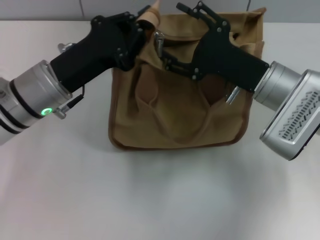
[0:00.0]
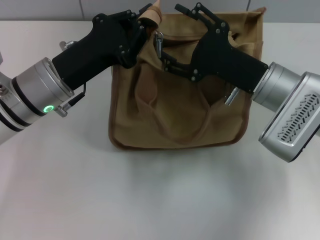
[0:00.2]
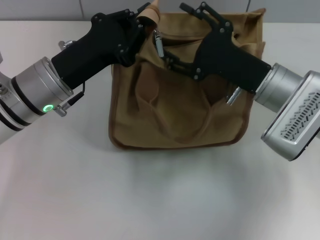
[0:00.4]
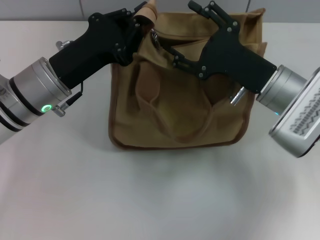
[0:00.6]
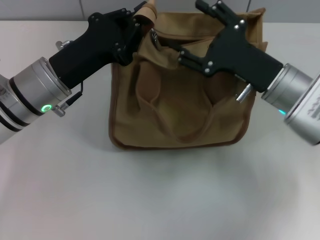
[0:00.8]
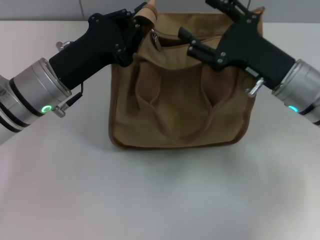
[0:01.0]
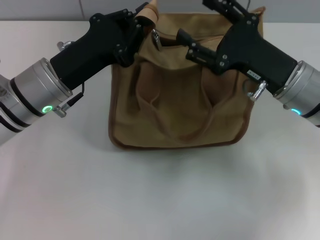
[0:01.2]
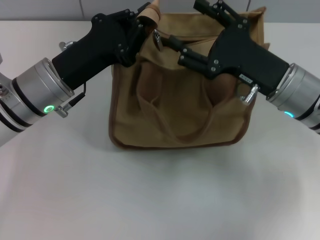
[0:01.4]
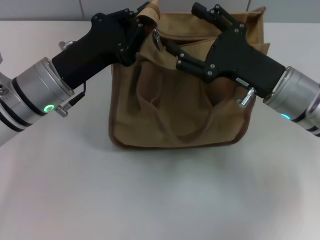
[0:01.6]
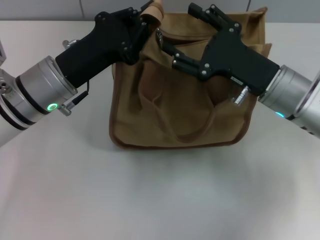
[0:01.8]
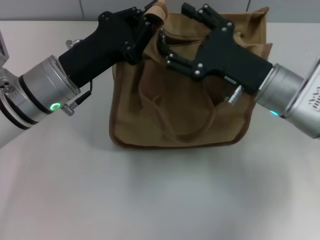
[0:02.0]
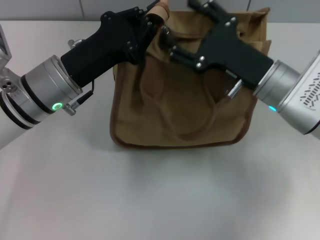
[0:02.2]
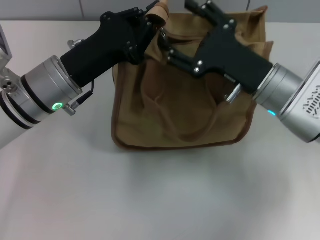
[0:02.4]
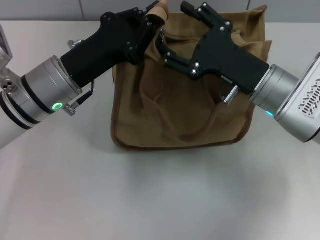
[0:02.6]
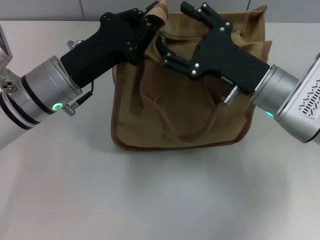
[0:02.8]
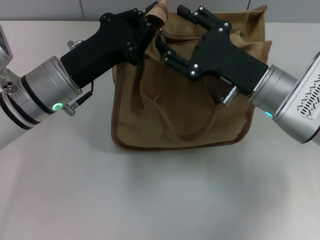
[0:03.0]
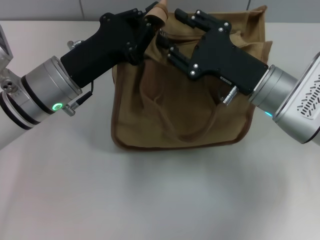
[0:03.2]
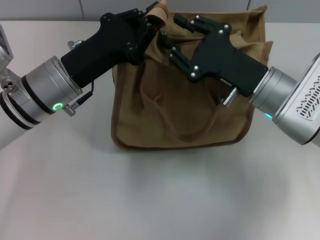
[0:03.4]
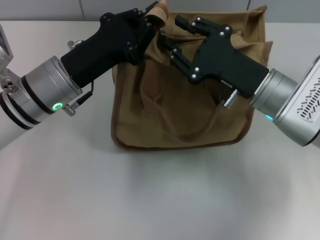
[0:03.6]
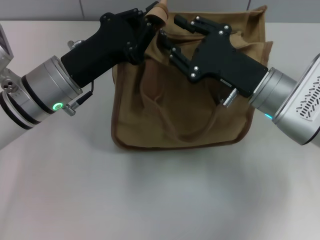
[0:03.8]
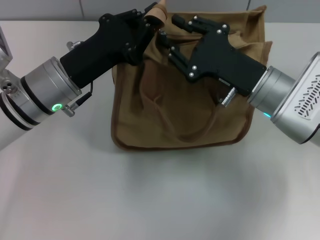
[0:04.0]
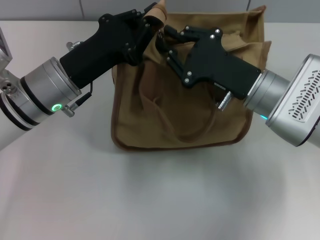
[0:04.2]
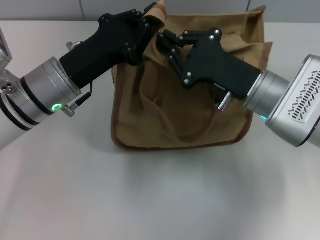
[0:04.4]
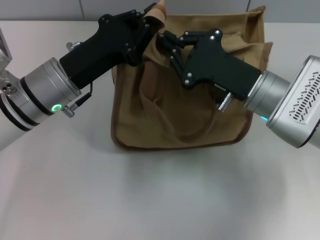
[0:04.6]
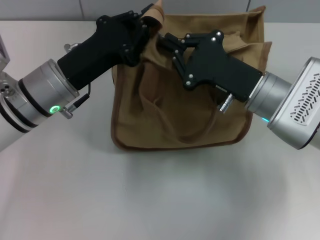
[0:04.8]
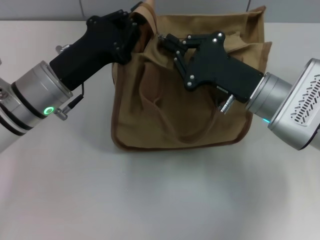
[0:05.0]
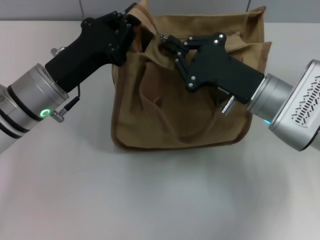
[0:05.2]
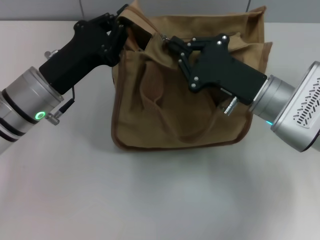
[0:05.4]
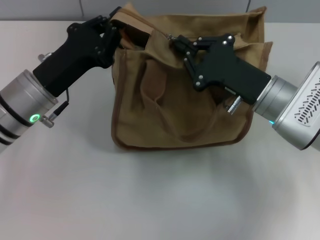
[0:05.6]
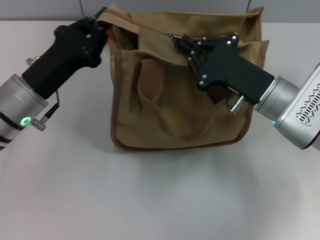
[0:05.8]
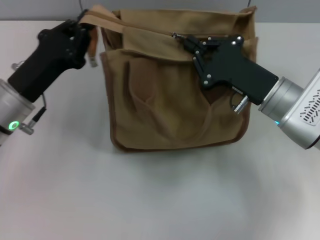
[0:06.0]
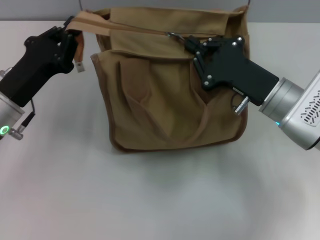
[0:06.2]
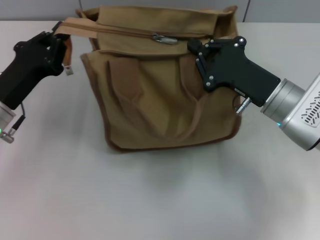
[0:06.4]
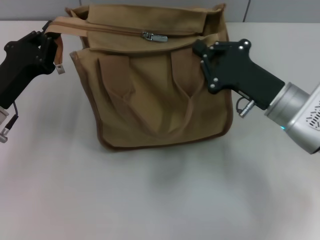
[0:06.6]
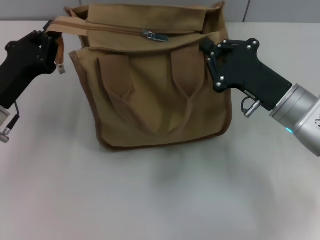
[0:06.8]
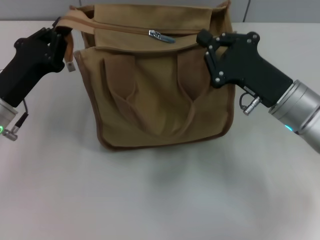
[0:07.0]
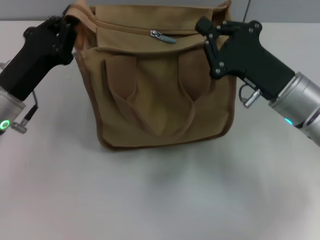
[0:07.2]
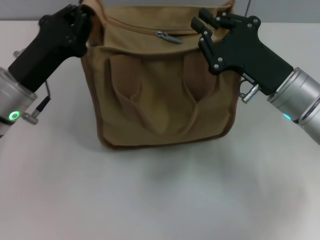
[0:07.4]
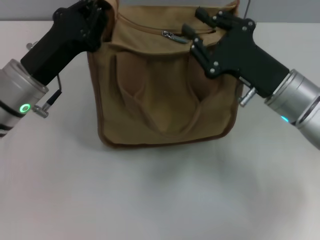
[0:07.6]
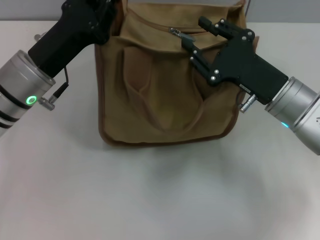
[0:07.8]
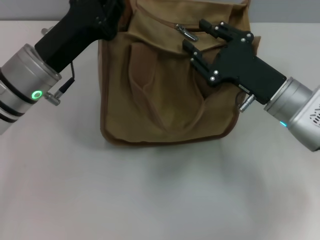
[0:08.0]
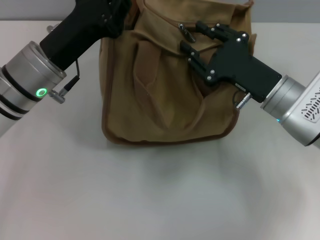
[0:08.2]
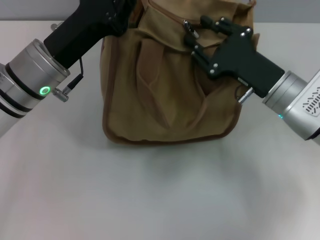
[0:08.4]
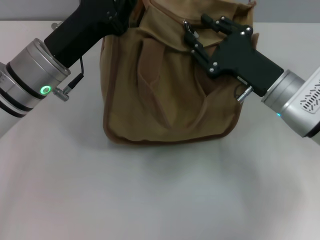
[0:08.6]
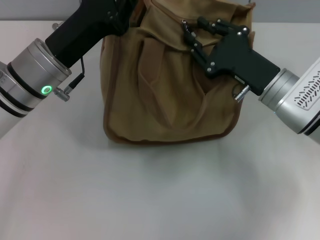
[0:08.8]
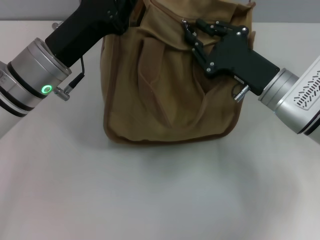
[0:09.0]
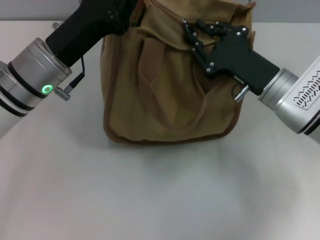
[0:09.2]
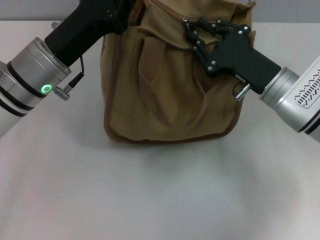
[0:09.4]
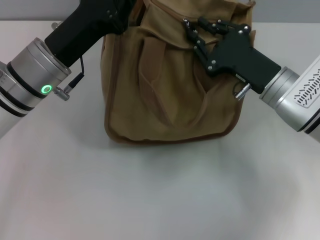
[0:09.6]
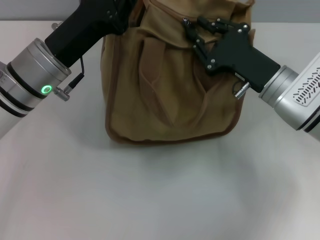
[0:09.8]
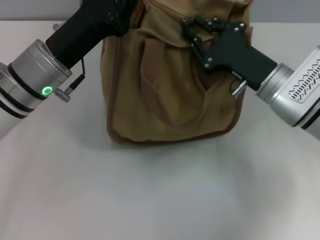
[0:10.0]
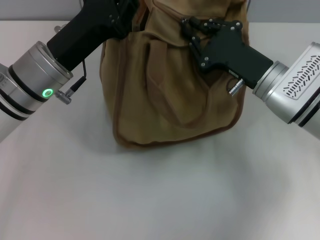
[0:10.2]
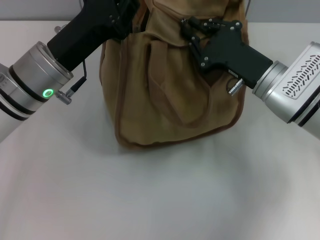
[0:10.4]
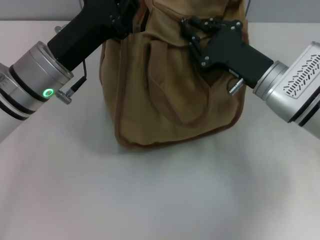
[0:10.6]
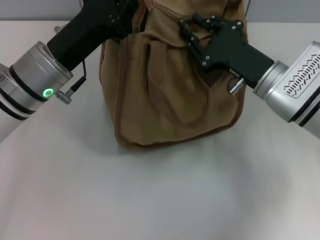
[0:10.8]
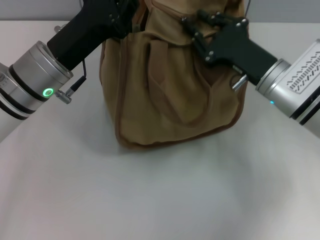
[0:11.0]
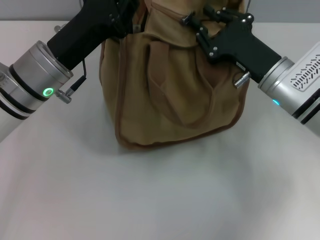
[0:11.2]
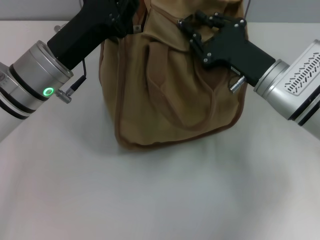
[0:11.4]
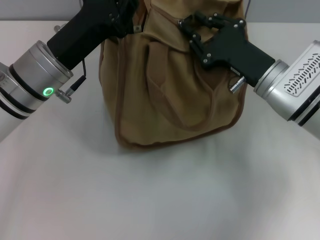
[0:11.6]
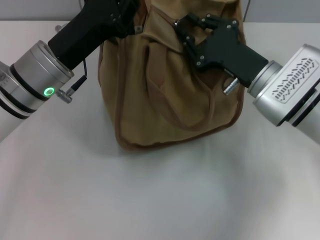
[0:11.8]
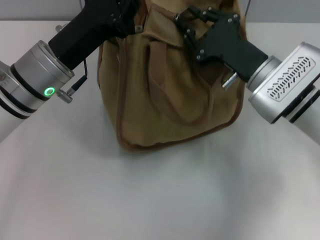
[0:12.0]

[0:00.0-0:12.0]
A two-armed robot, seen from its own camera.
0:01.6 to 0:03.0: There are only small adjustments of the grippers.
0:03.0 to 0:04.4: The right gripper closes.
0:04.4 to 0:06.0: The left gripper moves to the left, roughly 5 cm.
0:07.6 to 0:09.0: The grippers stay close to where they were, moving slightly.
0:09.0 to 0:10.4: Neither gripper changes place.
0:10.4 to 0:12.0: The grippers move only a little.

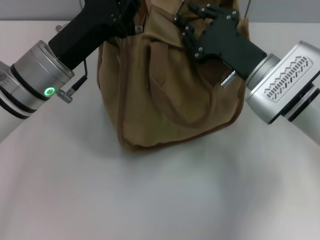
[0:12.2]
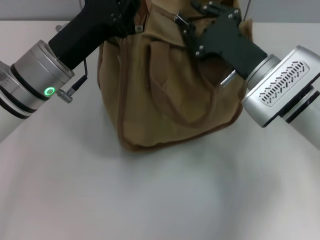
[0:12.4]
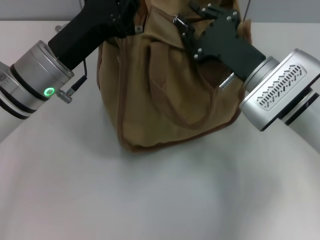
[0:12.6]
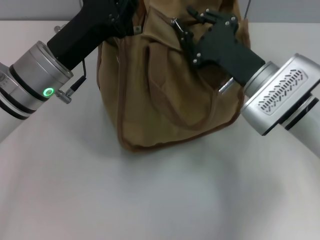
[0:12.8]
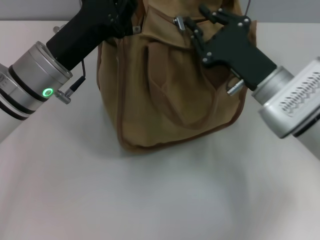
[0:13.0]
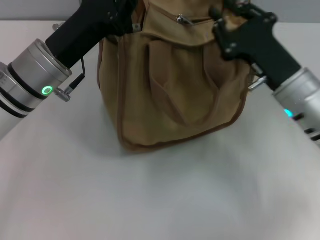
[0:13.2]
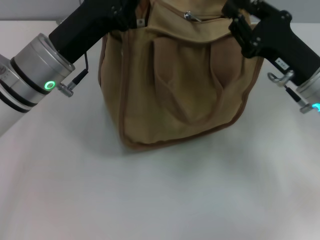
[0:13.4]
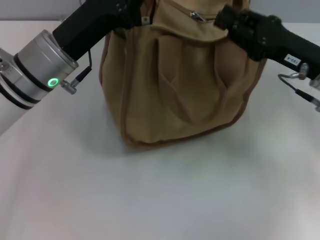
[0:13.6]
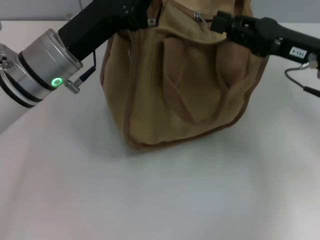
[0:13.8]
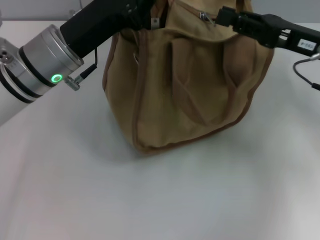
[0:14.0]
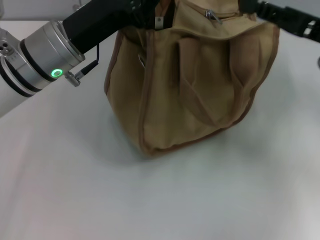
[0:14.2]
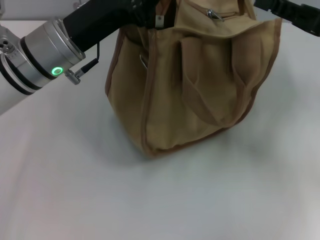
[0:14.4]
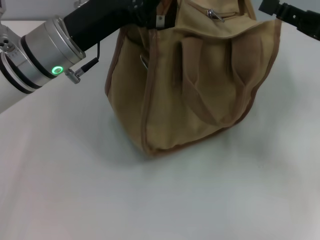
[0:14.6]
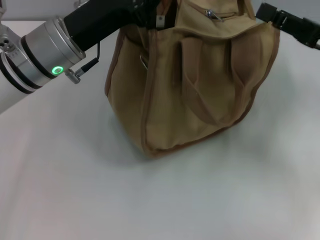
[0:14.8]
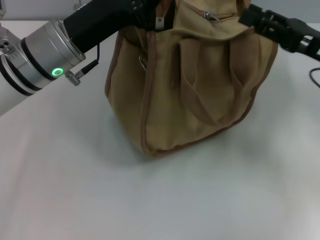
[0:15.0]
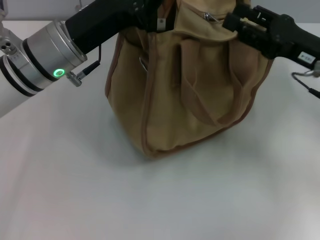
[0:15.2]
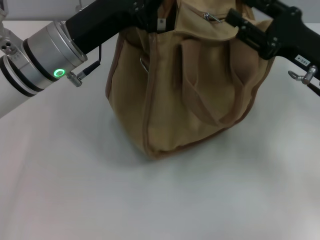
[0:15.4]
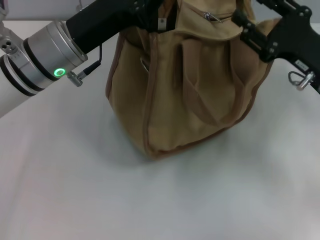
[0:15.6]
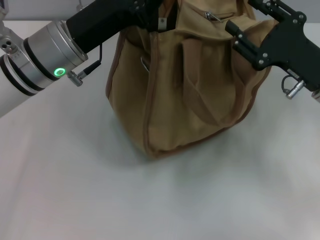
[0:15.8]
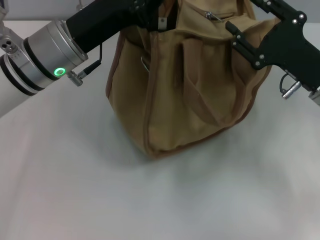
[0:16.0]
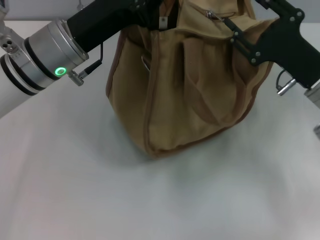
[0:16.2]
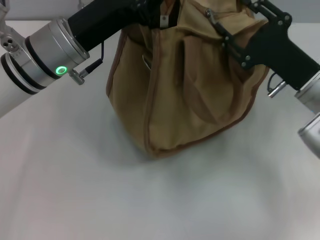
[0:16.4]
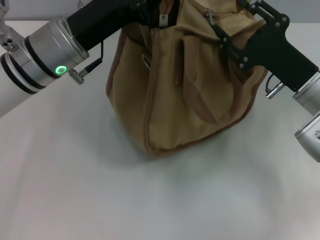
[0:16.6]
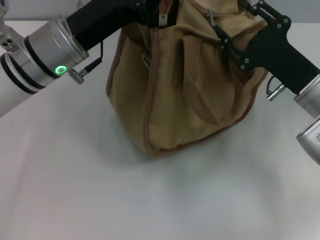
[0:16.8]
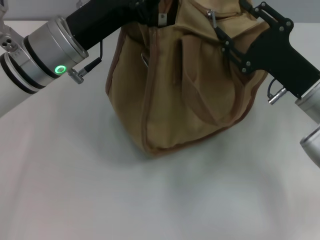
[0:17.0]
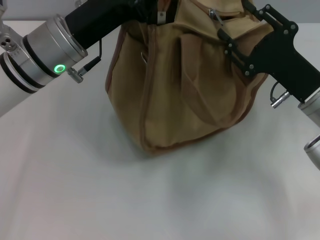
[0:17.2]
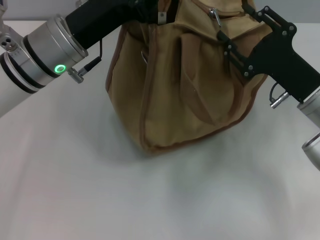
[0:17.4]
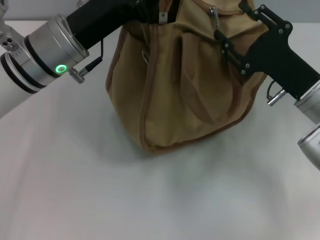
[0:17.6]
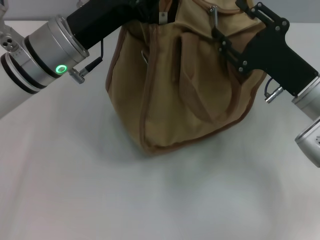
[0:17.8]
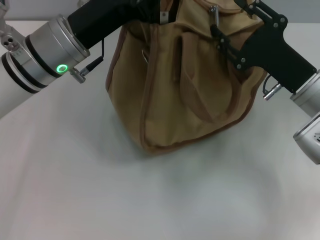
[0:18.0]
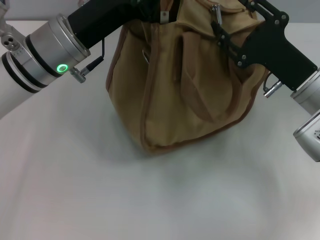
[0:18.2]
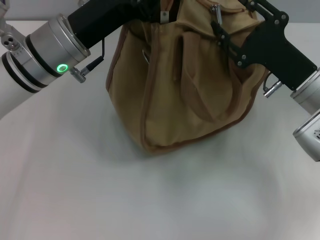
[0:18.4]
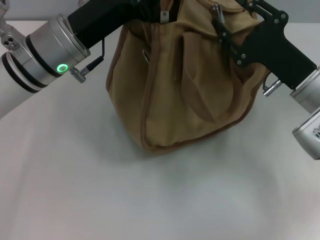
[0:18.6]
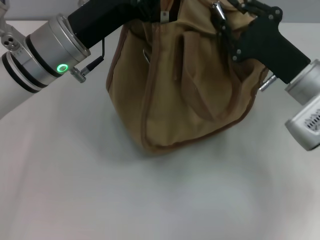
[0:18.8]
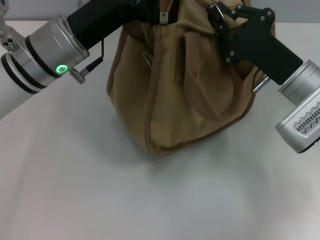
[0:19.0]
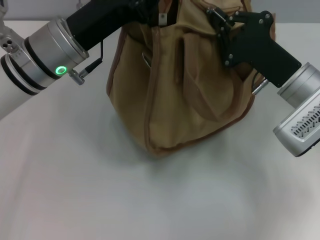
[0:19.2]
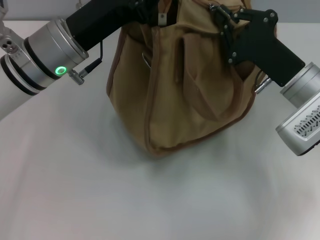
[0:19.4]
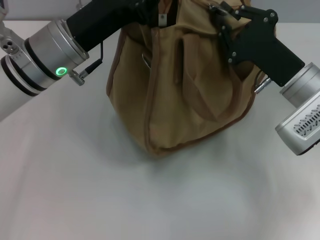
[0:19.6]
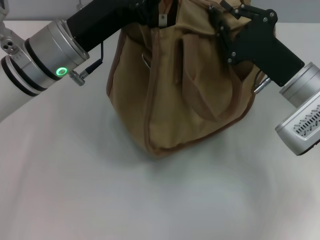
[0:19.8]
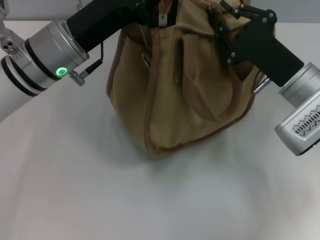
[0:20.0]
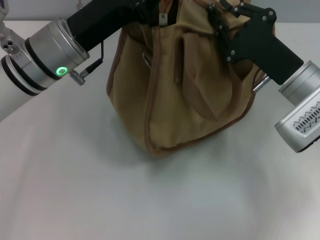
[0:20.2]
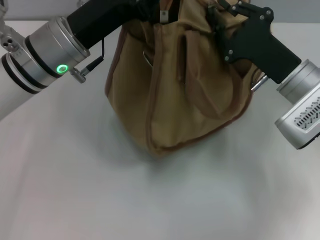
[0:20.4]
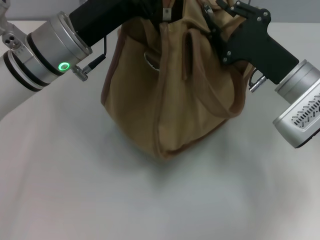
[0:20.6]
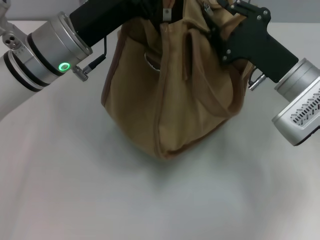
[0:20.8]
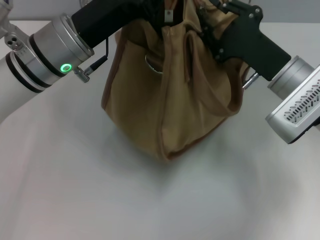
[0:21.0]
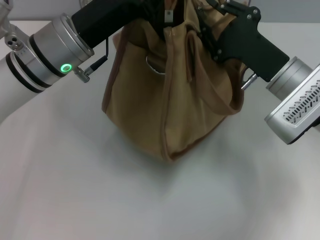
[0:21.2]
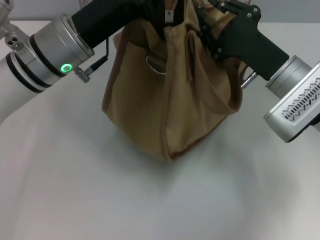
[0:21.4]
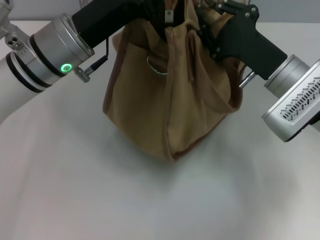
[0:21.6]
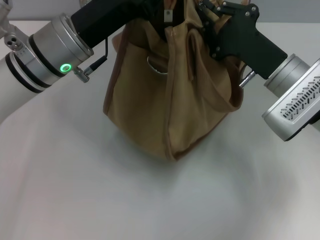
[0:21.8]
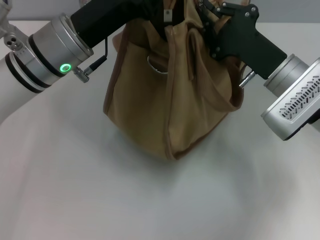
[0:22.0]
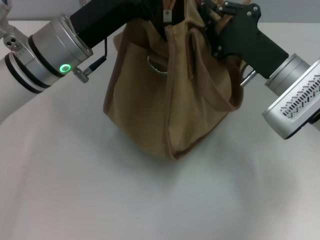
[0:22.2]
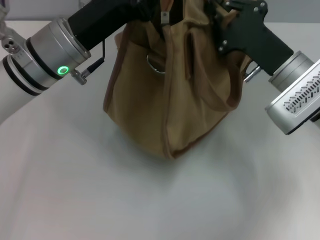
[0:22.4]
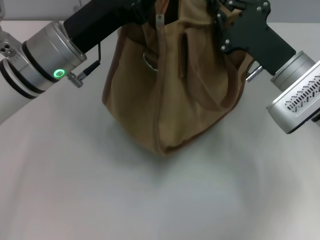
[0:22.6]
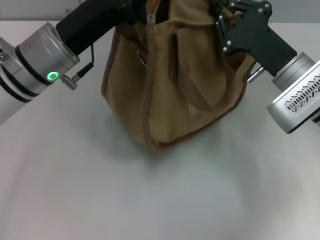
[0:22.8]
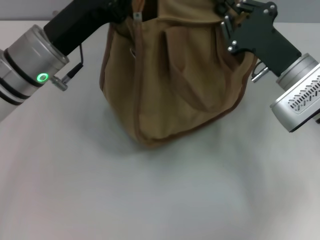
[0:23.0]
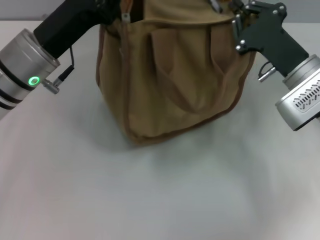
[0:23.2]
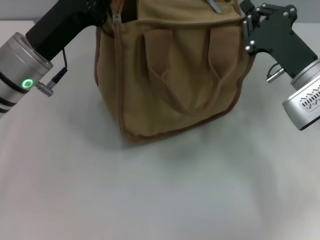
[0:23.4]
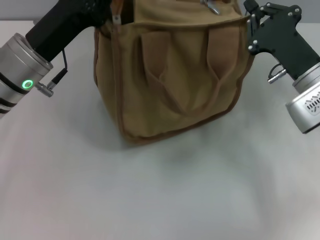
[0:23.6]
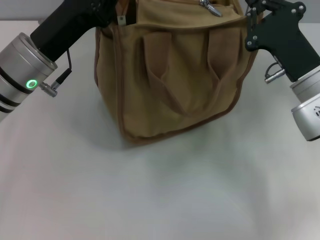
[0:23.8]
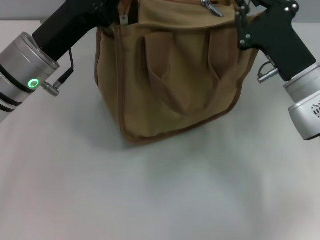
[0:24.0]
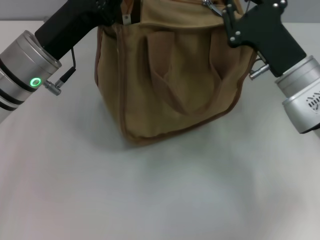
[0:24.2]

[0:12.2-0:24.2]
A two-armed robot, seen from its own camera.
0:12.2 to 0:13.8: The right gripper goes approximately 10 cm to the right and upward.
0:13.8 to 0:15.2: The grippers move only a little.
0:15.2 to 0:16.6: The right gripper ends up about 5 cm from where it was.
0:16.6 to 0:18.2: The grippers make only small movements.
0:18.2 to 0:19.8: The right gripper closes up.
0:19.8 to 0:21.2: The grippers stay close to where they were, moving slightly.
0:21.2 to 0:22.6: The two grippers keep their place.
